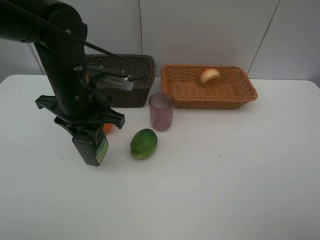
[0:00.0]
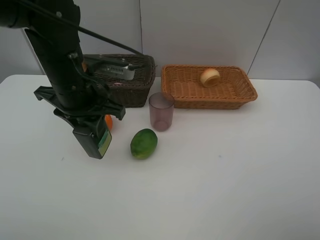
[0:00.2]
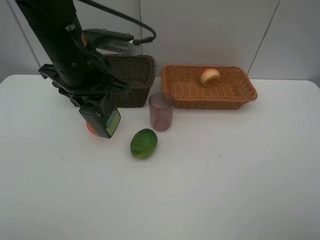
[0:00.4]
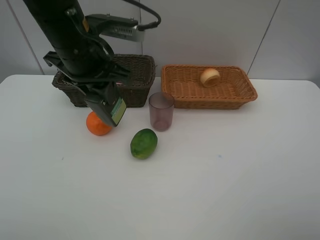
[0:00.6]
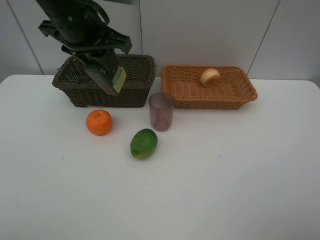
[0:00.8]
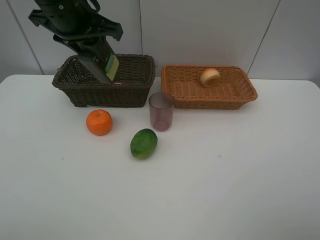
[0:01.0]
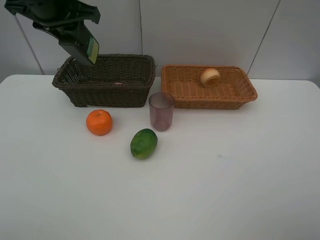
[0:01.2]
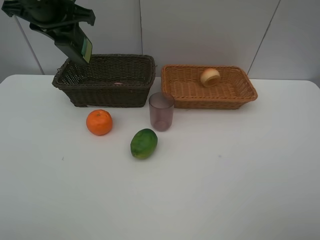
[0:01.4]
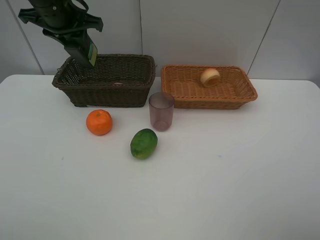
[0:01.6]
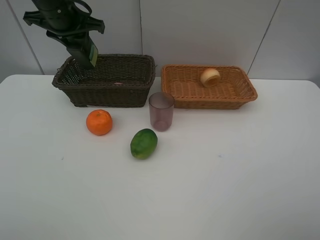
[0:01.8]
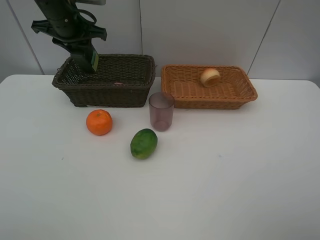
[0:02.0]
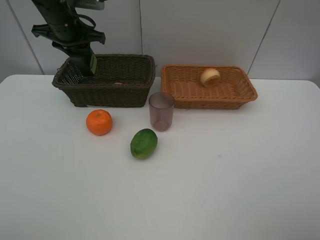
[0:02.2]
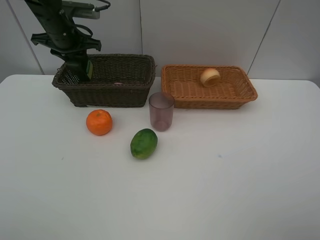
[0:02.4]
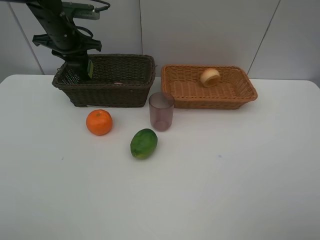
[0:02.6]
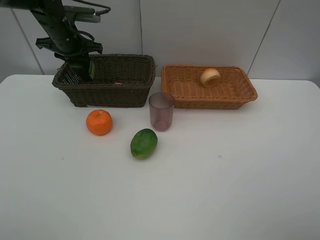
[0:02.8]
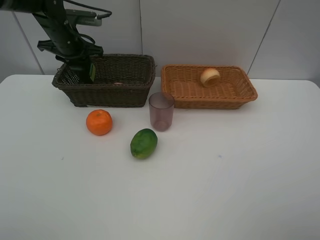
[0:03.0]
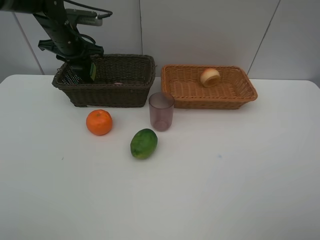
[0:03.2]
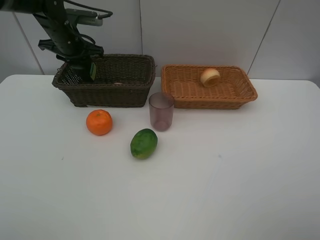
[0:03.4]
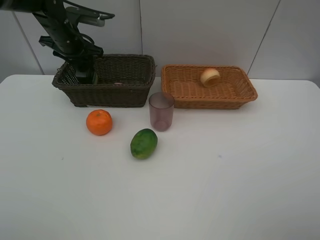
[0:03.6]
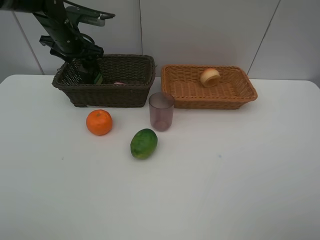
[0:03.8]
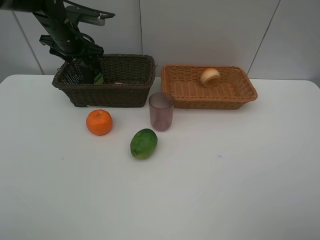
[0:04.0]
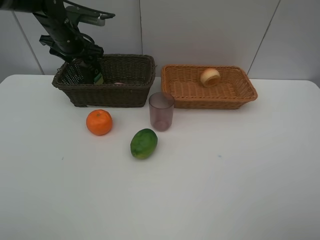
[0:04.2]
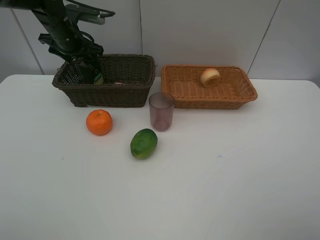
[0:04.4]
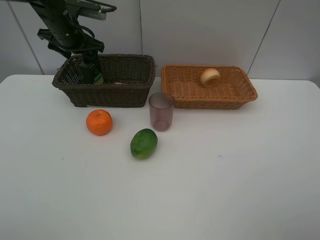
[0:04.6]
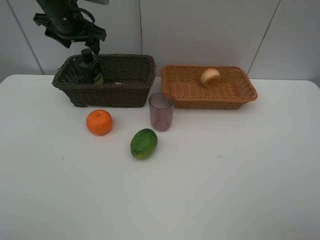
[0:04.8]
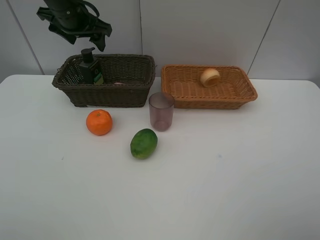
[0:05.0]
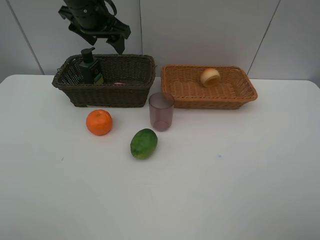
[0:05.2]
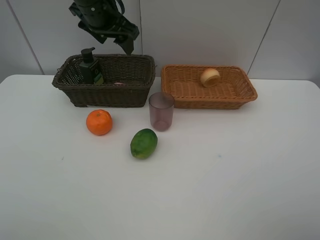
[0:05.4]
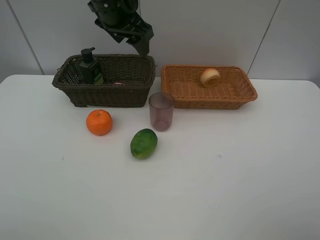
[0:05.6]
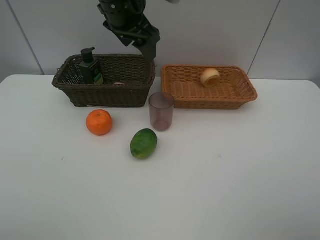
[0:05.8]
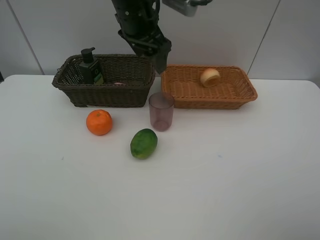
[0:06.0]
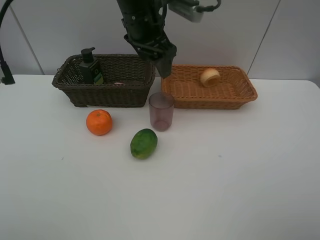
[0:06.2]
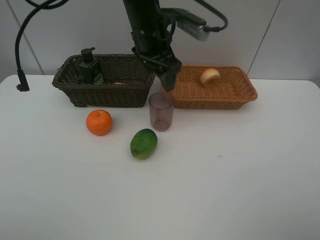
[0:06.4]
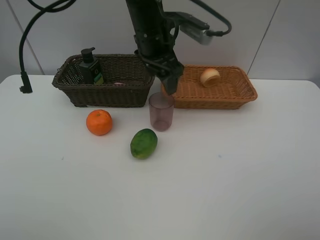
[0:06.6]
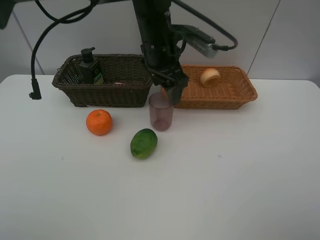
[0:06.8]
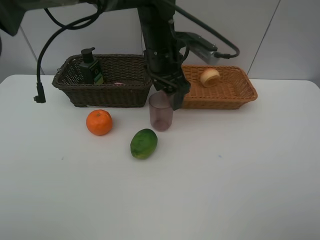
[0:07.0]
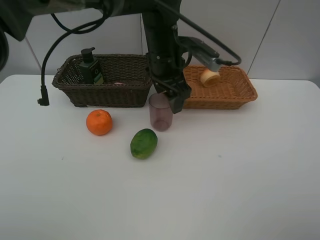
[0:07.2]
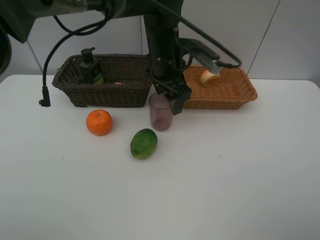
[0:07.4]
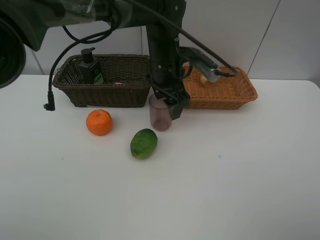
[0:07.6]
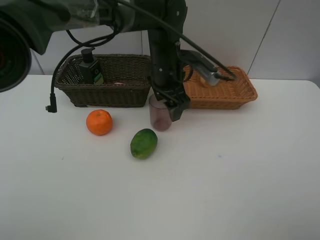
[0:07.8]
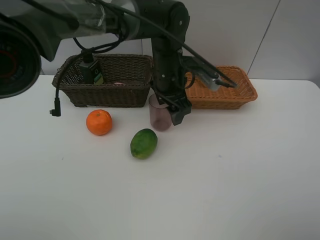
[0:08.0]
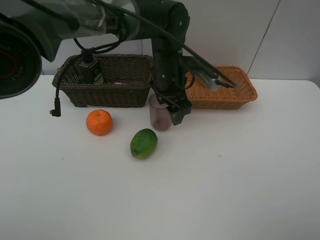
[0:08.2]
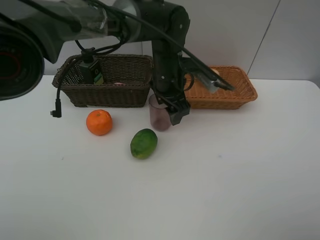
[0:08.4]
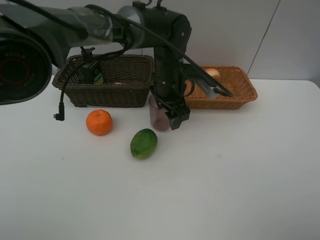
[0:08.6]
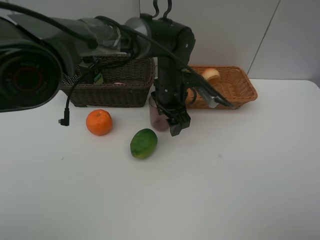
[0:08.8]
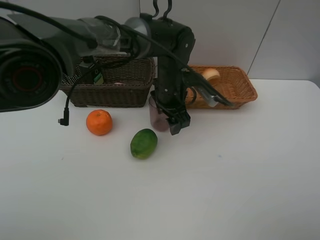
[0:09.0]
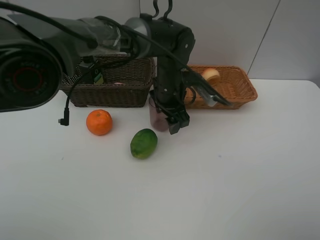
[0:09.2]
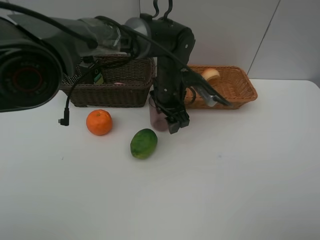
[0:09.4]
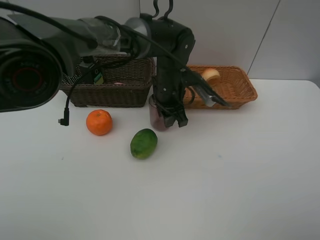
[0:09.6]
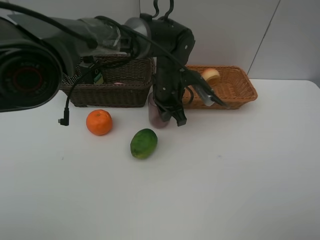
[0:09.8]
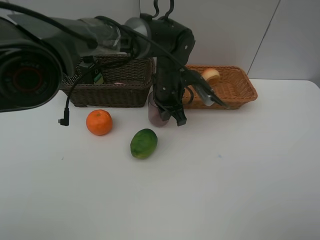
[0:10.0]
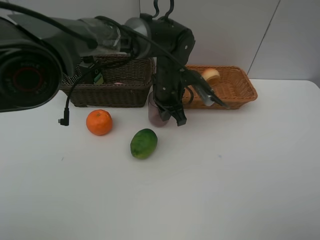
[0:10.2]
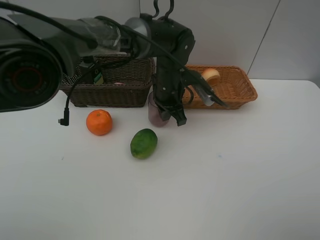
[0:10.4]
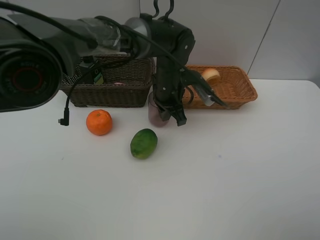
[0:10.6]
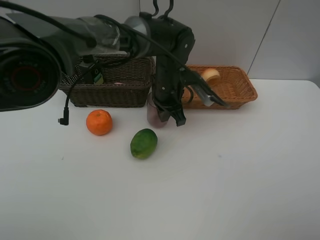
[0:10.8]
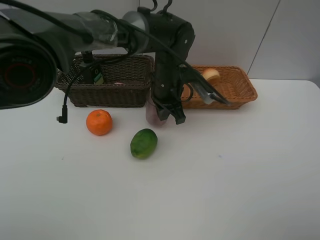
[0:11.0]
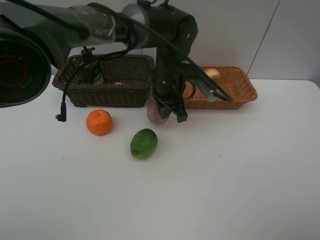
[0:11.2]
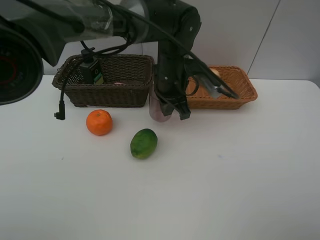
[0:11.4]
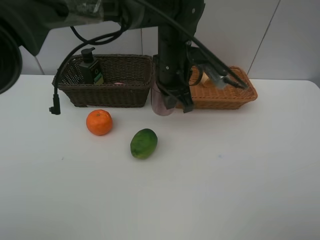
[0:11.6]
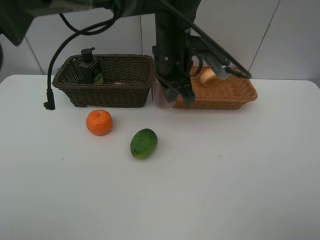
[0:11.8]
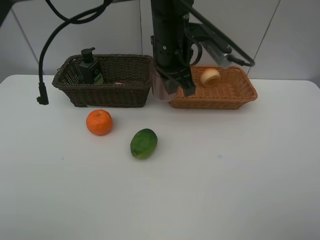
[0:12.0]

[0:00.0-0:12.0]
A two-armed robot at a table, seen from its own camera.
Task of the whole recording: place multiple objects separately in different baskets.
0:00.0 to 0:01.6: The left gripper moves forward, upward and to the left, roughly 20 cm.
0:01.6 to 0:03.0: The left gripper goes roughly 10 cm downward and forward.
0:03.0 to 0:04.4: The left gripper opens up.
0:04.4 to 0:06.0: The left gripper shifts some 20 cm to the right, backward and upward.
0:06.0 to 0:07.6: The left gripper moves downward and to the right, about 10 cm.
0:07.6 to 0:09.0: The left gripper travels downward by roughly 5 cm.
0:09.0 to 0:10.4: The left gripper closes its fingers.
0:10.4 to 0:12.0: The left gripper moves upward, approximately 10 cm.

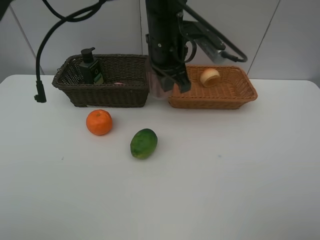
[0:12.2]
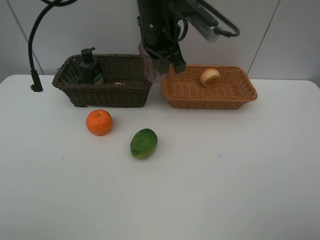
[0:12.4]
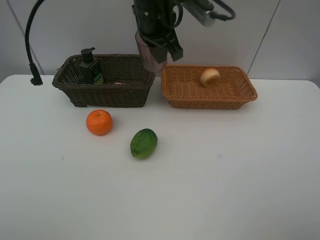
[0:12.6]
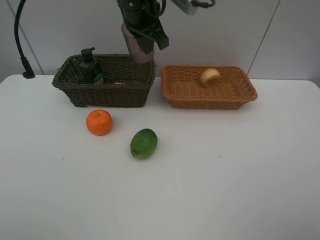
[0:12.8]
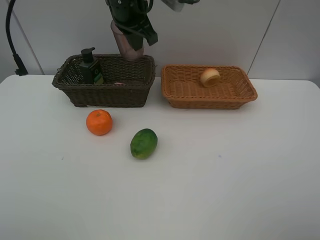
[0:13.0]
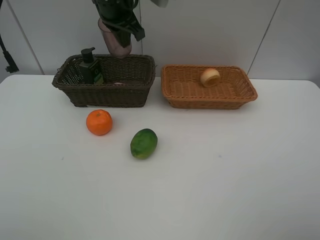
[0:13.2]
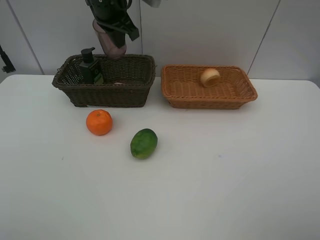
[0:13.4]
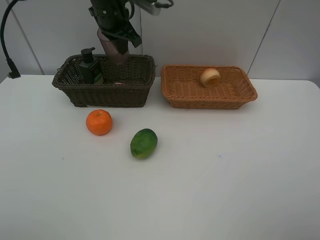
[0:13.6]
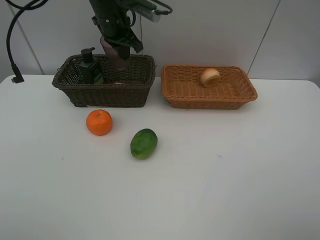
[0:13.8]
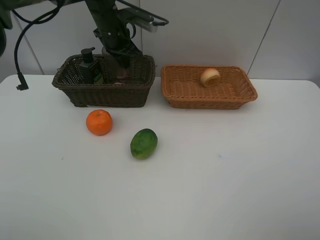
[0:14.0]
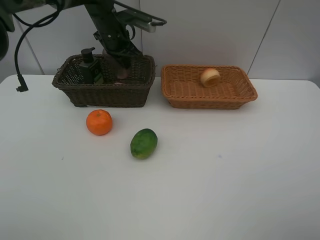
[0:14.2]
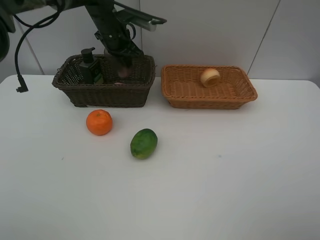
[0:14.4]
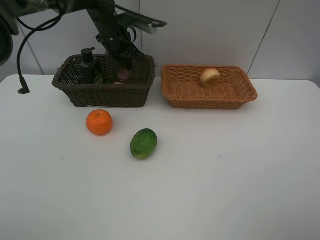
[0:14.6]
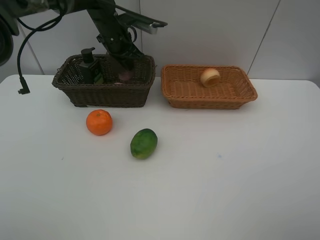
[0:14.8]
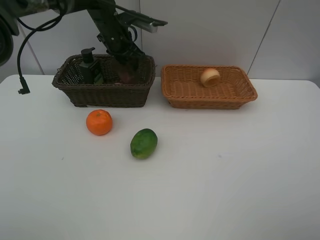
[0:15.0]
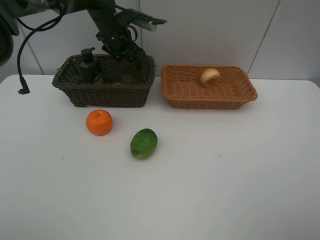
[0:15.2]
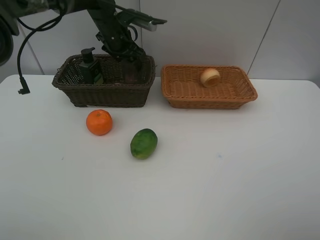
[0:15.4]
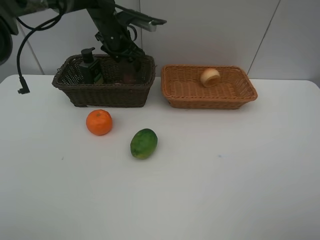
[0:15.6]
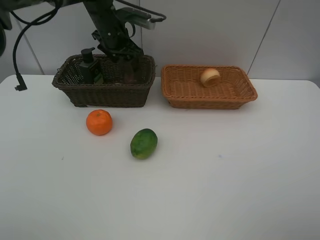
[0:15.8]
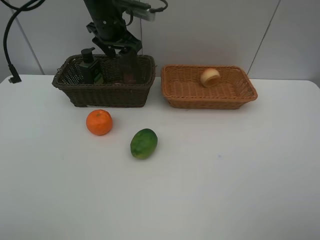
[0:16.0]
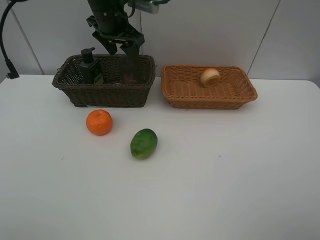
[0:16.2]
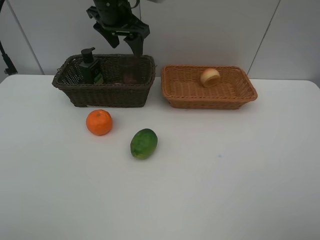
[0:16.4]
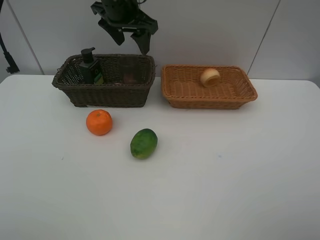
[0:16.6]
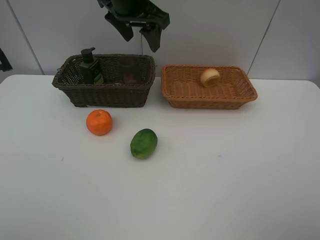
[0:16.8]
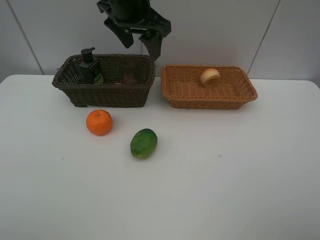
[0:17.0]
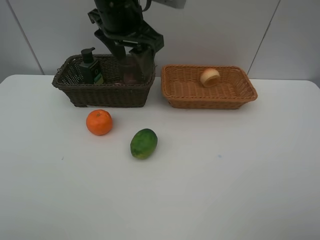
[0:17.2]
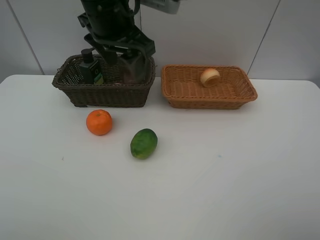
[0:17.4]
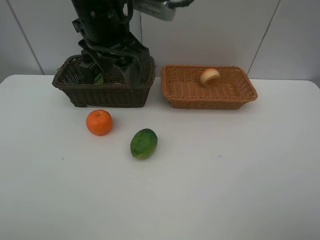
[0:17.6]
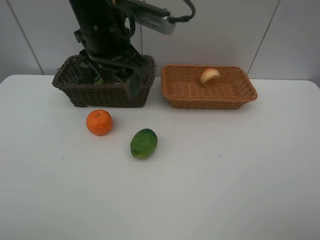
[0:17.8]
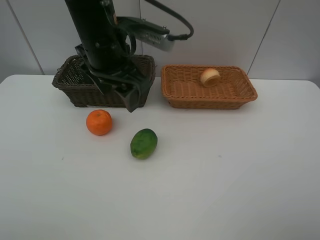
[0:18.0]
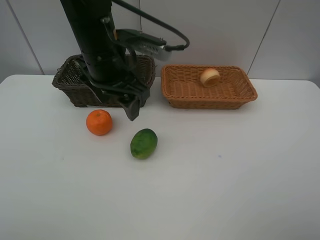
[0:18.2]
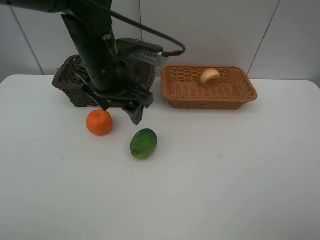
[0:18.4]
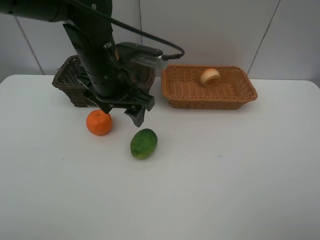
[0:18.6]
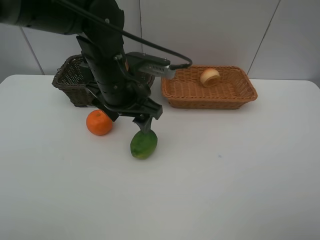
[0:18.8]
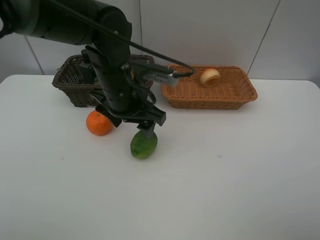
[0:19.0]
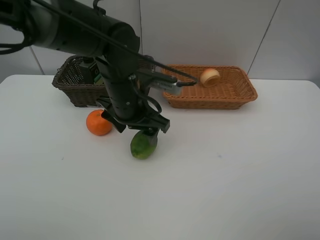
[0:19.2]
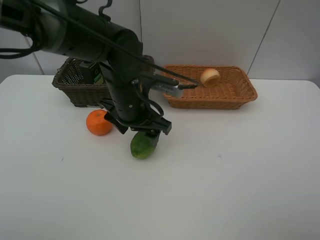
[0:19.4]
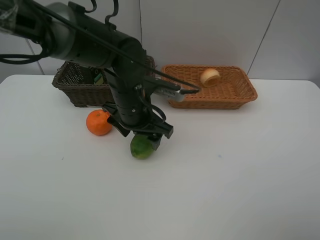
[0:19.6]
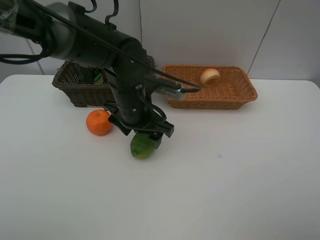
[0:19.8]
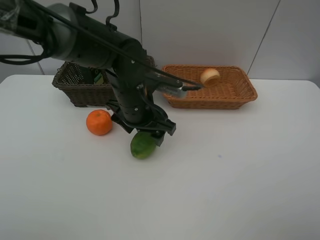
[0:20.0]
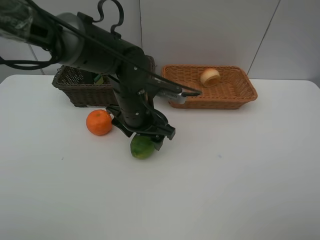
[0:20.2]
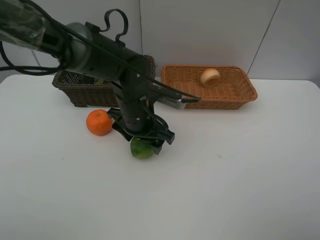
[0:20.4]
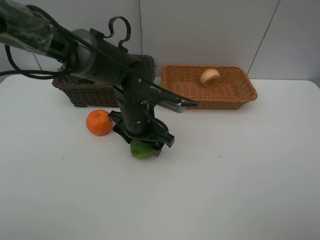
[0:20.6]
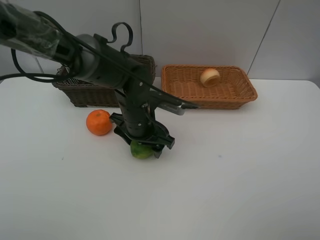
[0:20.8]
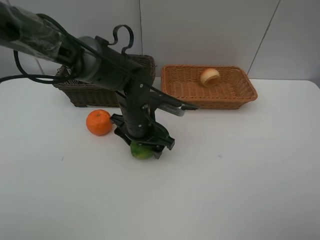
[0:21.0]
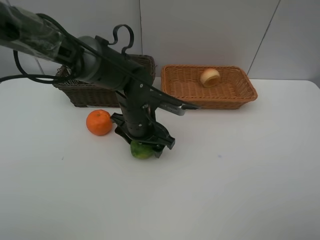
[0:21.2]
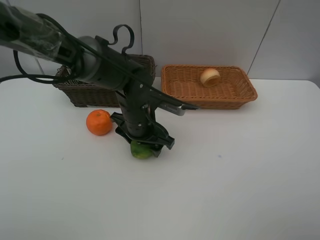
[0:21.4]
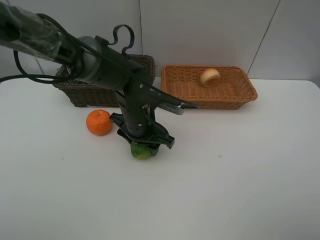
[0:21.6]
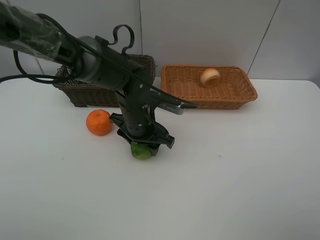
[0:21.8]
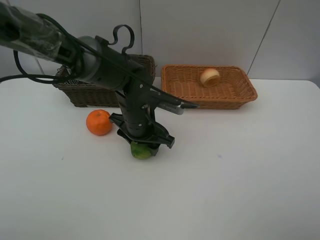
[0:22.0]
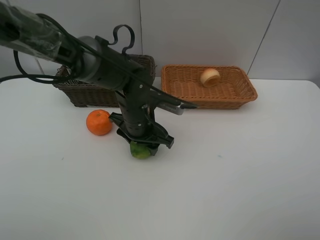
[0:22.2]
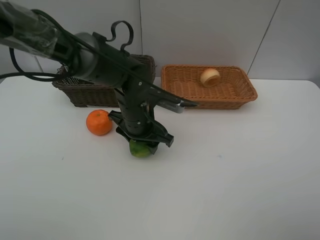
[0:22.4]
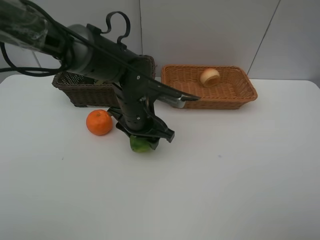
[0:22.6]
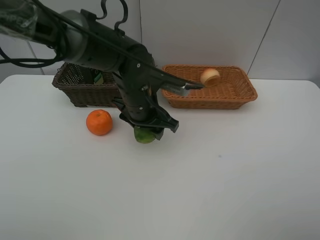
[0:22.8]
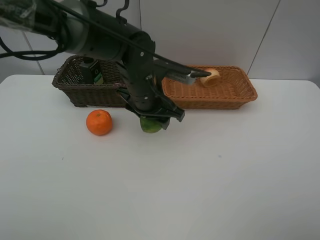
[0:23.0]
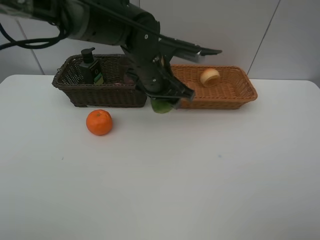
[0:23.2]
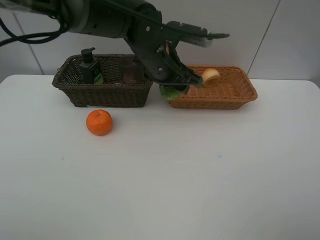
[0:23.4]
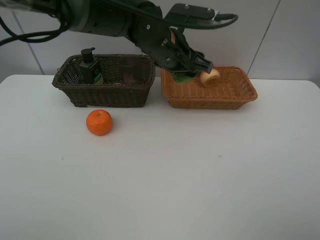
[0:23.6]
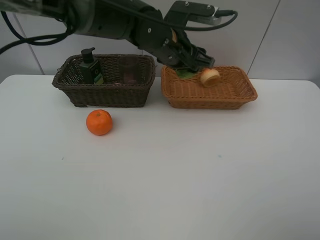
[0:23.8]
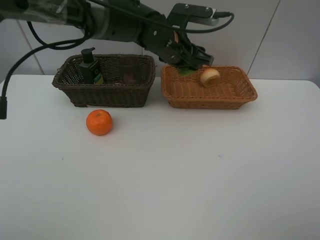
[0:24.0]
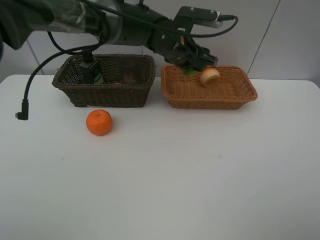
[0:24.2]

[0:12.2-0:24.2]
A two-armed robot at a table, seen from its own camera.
Task of the whole recording: place multiple objects separately in different baskets.
0:12.2 to 0:13.8: The left gripper goes roughly 15 cm to the left and forward.
0:13.8 to 0:15.2: The left gripper shifts by about 5 cm, and opens up.
0:15.2 to 0:16.6: The left gripper heads upward and backward, covering approximately 15 cm.
0:16.6 to 0:18.2: The left gripper goes approximately 15 cm backward and downward.
0:18.2 to 0:19.8: The left gripper goes roughly 10 cm downward.
0:19.8 to 0:22.6: The grippers make only small movements.
0:22.6 to 0:24.2: The left gripper moves forward, to the right and upward, some 15 cm.
